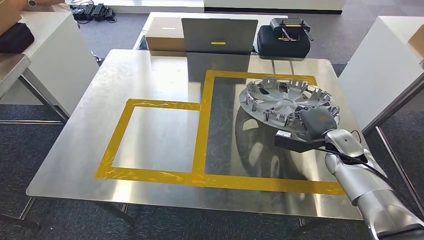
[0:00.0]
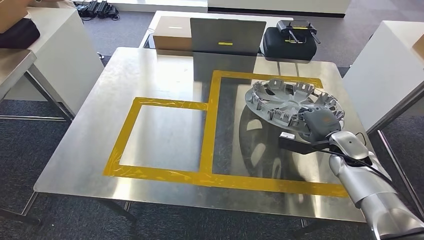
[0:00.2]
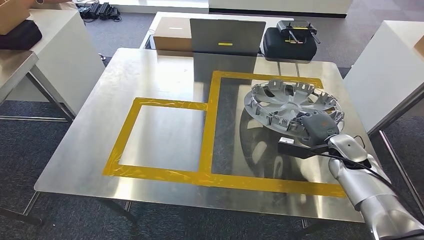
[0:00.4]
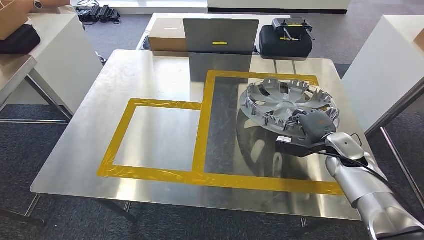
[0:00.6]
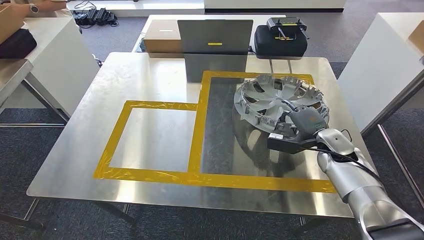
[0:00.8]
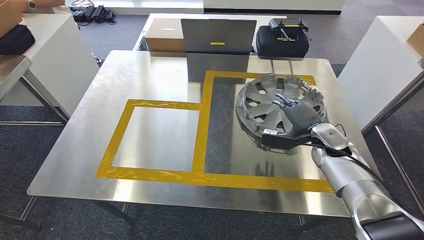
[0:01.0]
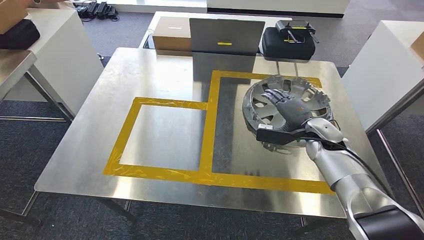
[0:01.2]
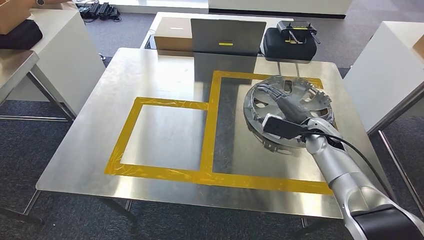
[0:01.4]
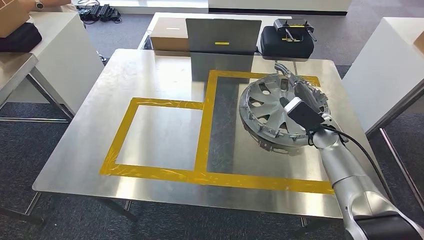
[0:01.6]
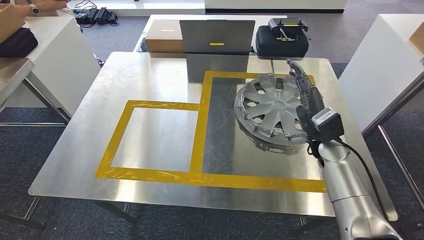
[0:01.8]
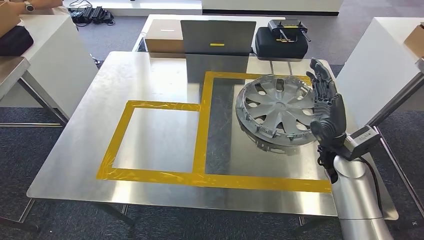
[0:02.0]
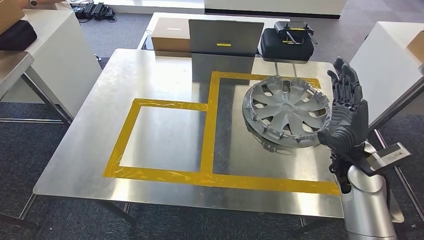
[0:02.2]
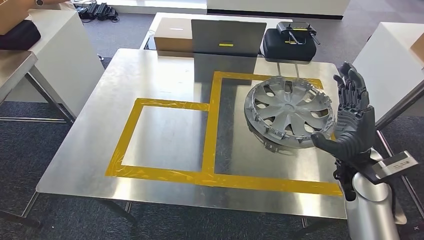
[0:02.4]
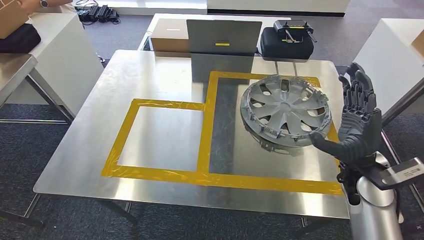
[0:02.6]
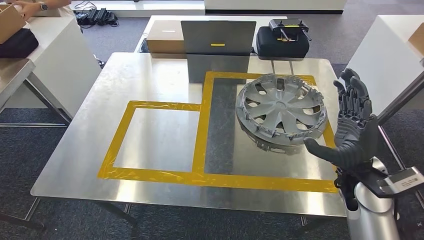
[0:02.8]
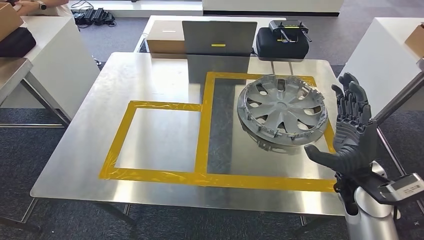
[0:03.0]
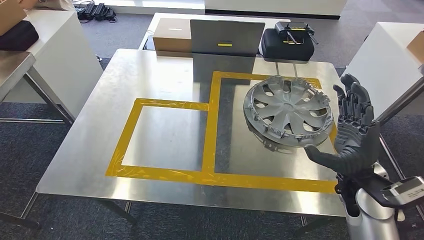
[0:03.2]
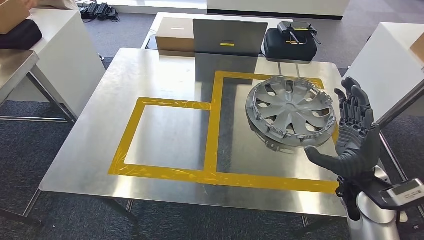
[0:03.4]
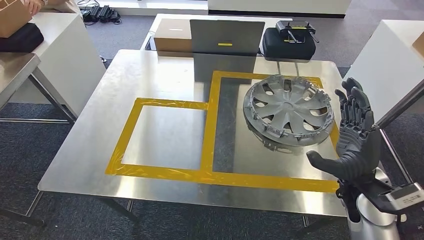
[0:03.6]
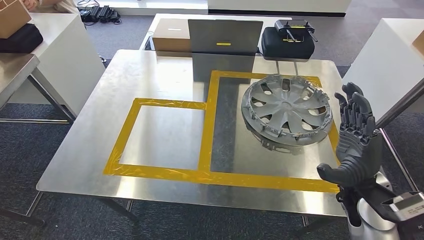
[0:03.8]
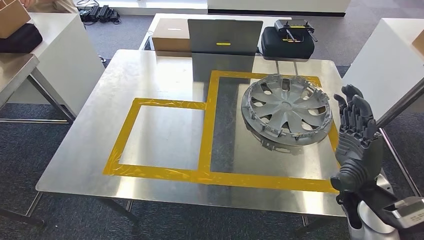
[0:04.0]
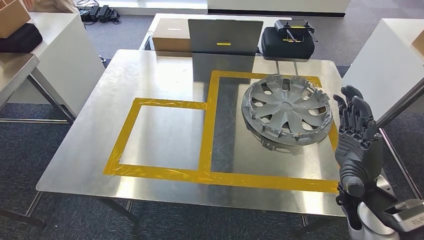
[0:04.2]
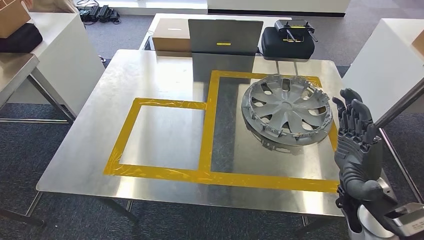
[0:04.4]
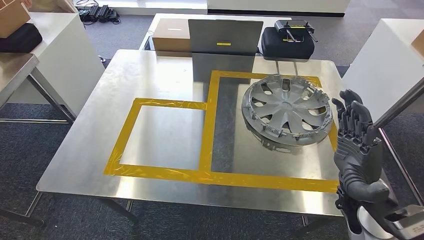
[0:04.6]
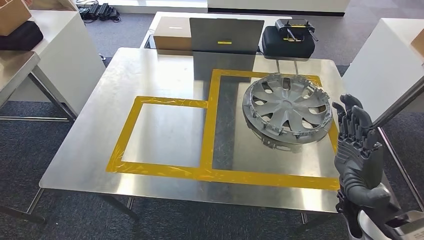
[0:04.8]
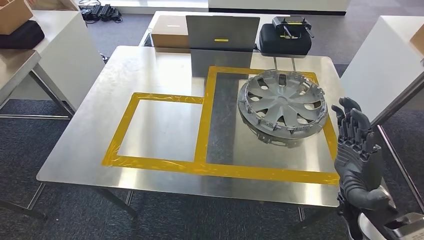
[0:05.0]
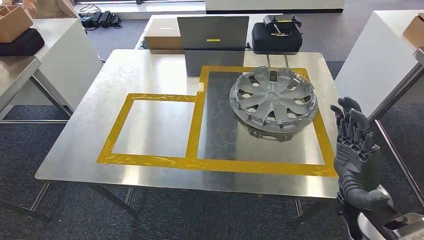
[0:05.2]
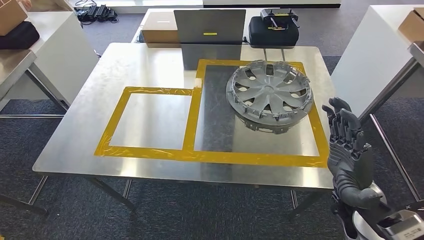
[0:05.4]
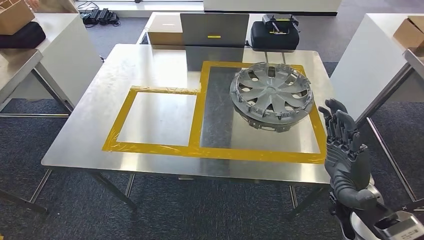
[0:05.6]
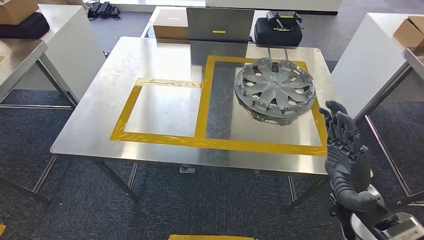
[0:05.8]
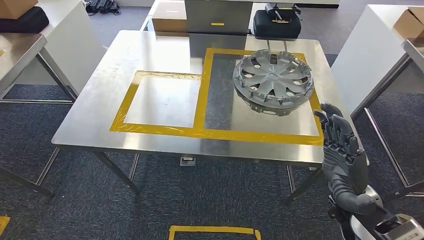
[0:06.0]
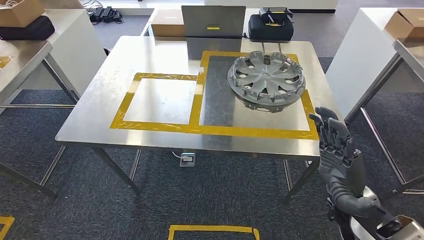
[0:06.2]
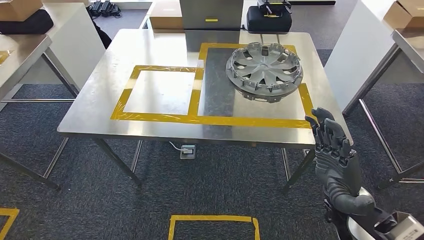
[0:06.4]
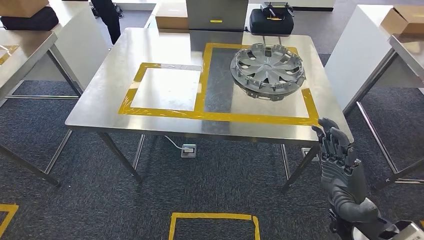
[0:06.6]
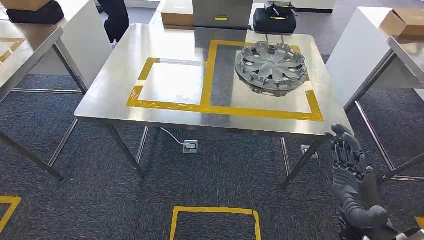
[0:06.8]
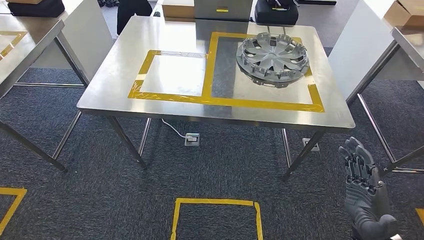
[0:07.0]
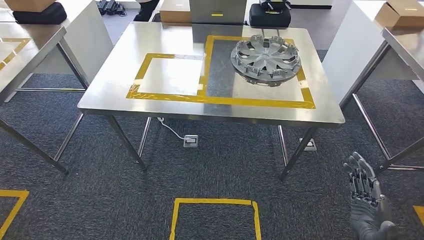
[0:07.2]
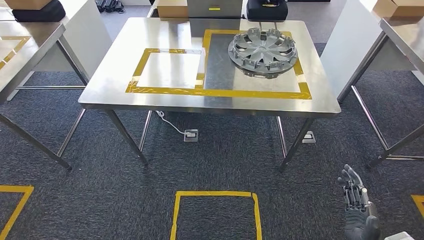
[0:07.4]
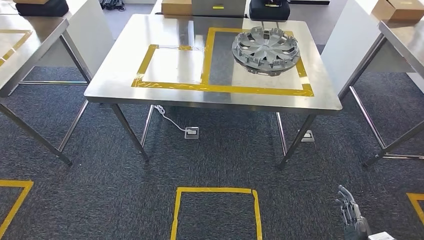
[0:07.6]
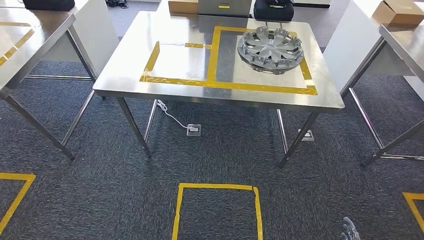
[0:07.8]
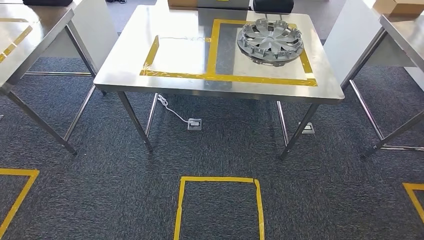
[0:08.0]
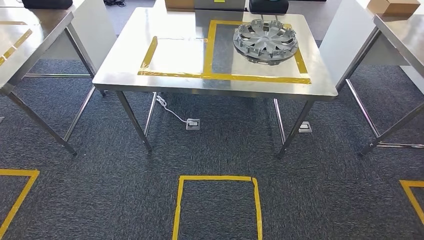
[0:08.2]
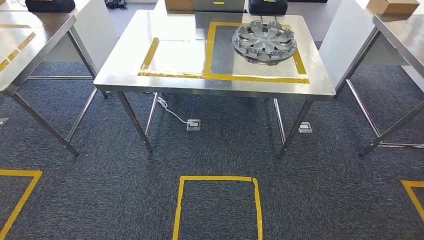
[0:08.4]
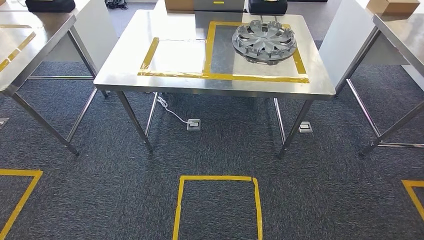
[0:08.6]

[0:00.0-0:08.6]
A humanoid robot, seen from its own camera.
Step, 0:00.0 to 0:02.8: Insert the small parts into the corresponding slots on the workbench.
Step, 0:03.0 to 0:08.6: Return to the initial position at the workbench.
